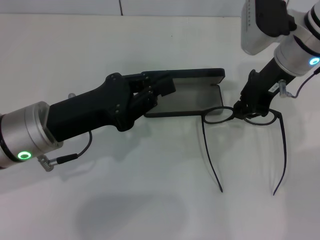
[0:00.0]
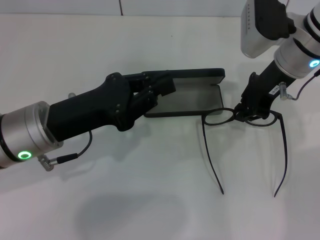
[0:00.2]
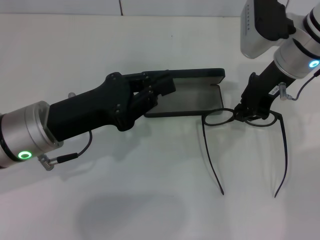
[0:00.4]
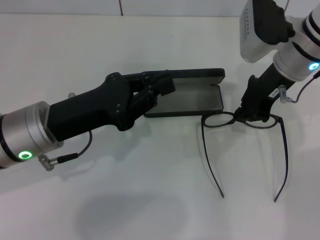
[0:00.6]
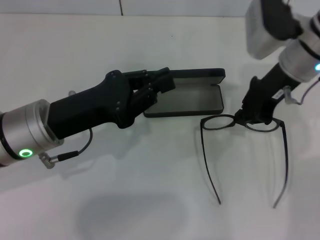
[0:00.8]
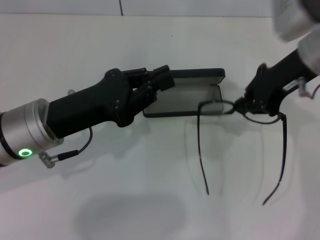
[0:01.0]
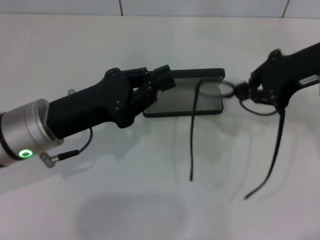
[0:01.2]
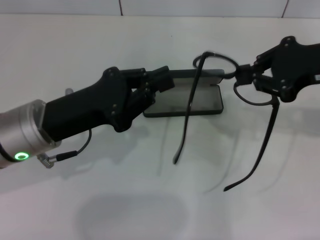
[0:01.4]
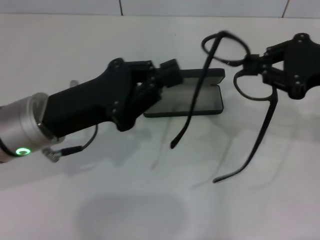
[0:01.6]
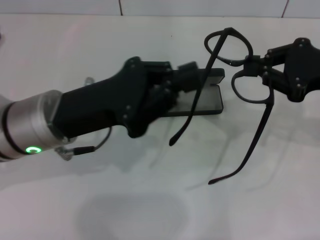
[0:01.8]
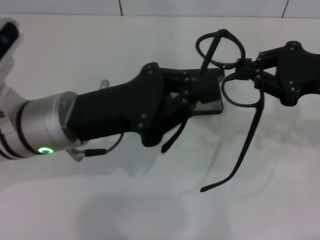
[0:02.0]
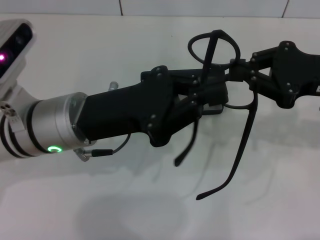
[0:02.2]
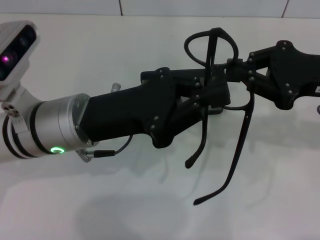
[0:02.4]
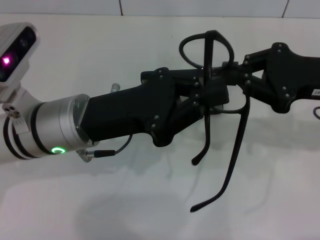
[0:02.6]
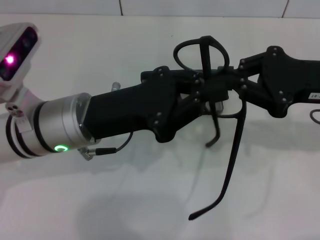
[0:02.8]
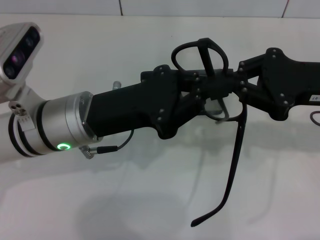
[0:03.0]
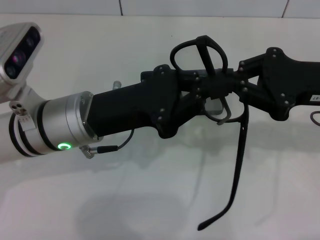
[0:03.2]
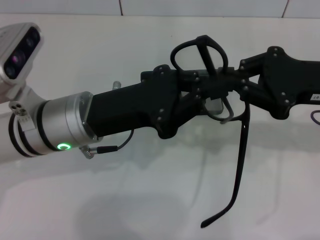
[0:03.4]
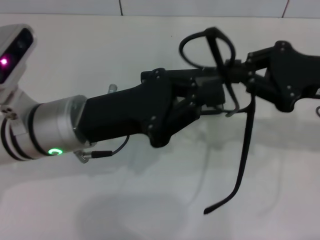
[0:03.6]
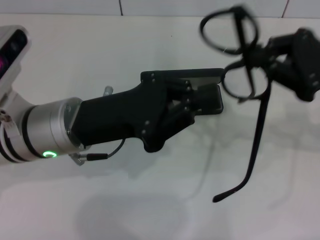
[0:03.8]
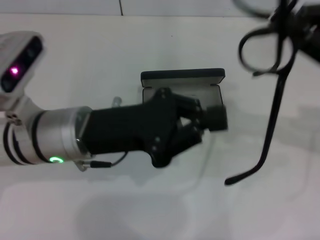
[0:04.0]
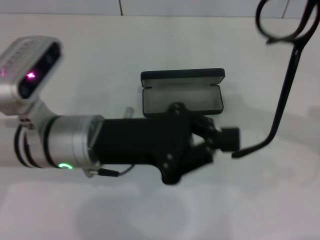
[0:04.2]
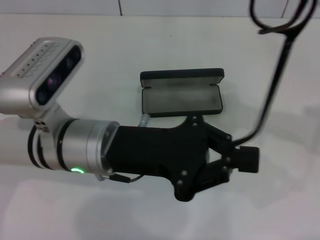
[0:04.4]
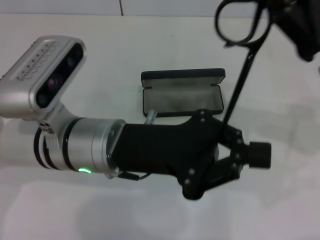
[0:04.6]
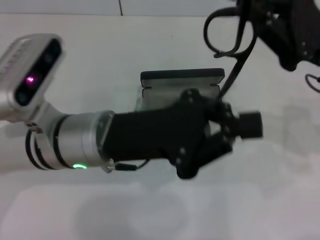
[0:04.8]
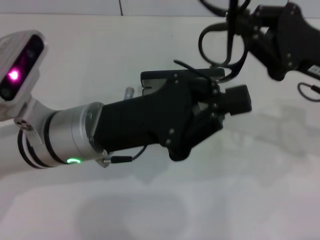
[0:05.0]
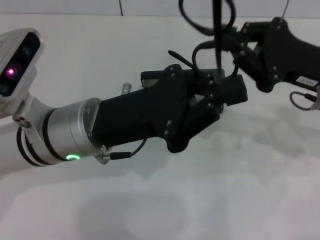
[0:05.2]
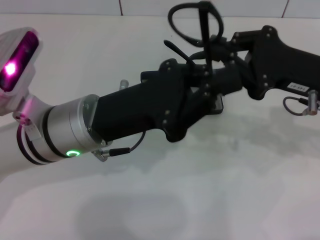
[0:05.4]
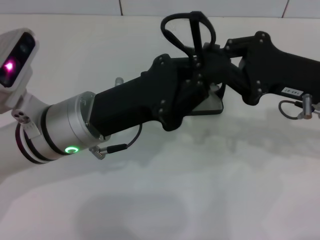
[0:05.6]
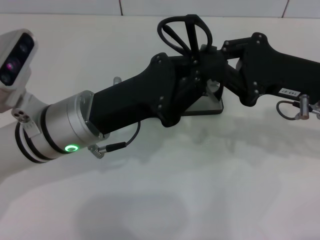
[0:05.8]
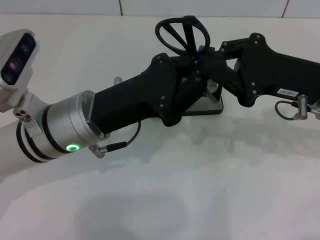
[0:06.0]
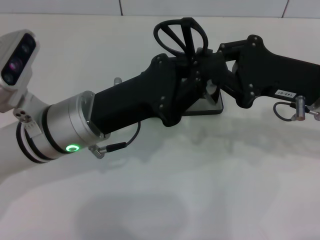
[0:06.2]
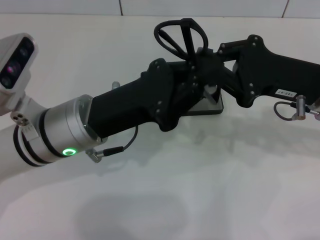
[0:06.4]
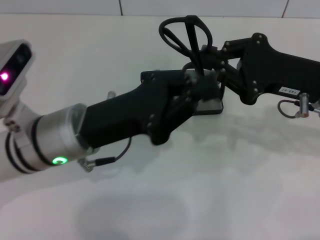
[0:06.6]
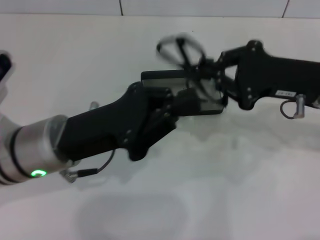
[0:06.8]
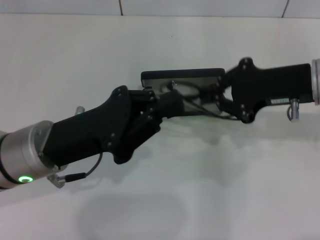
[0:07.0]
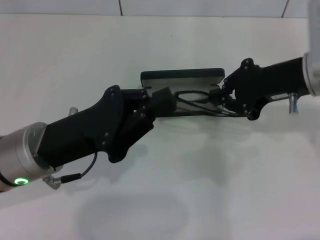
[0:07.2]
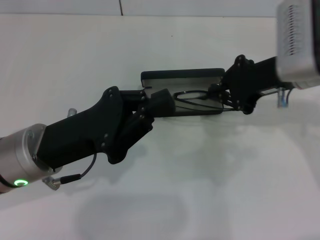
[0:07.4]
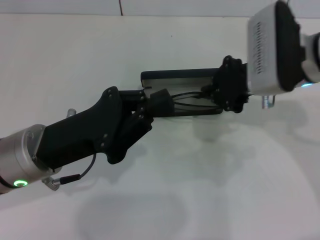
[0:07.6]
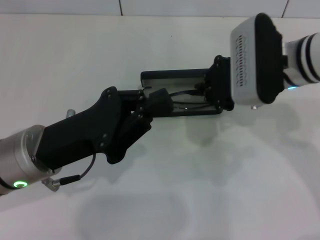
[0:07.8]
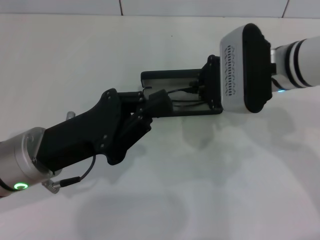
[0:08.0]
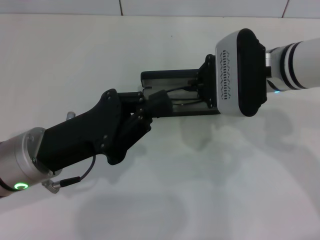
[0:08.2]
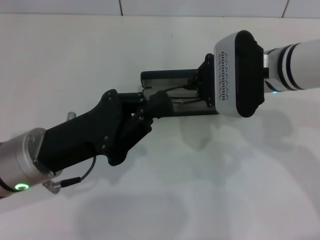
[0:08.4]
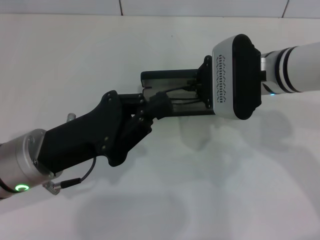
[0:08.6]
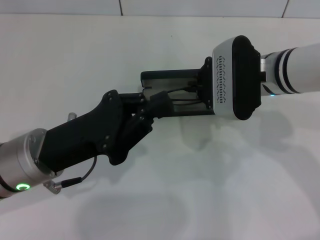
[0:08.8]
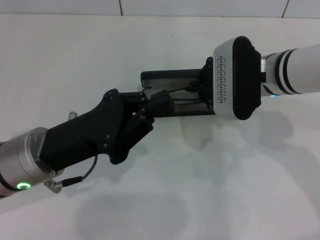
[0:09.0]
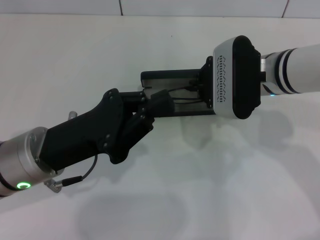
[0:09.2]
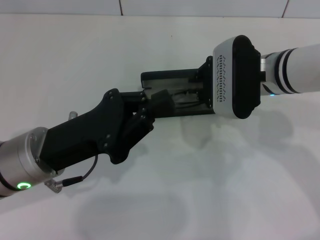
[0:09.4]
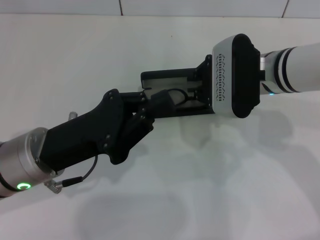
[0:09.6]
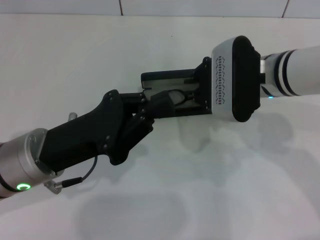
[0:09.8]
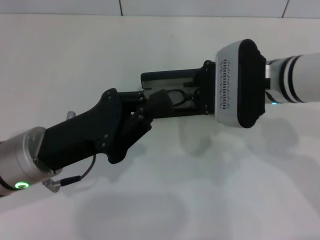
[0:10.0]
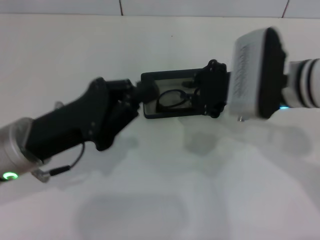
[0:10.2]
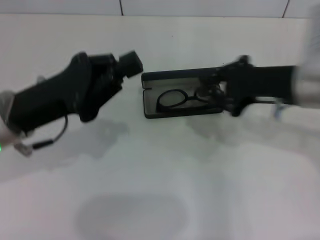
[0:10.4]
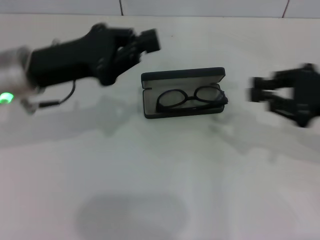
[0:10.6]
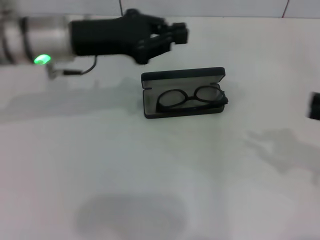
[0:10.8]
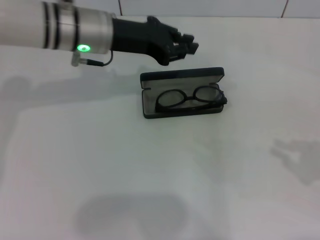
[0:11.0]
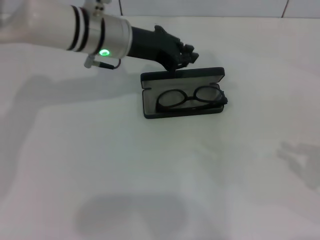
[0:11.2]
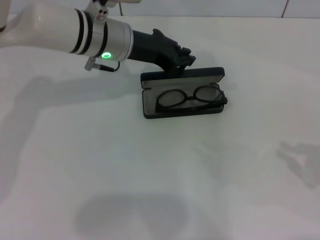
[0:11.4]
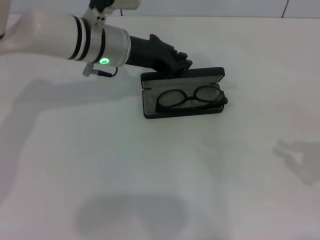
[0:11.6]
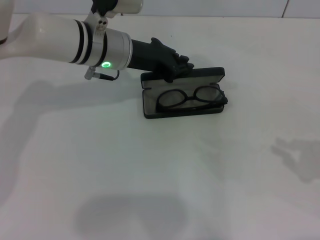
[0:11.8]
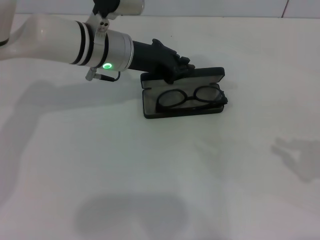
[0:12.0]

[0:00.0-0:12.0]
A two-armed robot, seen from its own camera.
Step, 0:00.2 to 0:06.6: Fold the frame with your left hand.
Step, 0:06.8 to 0:09.8: Put the glasses into the case with your right hand.
0:00.0 to 0:01.6: The right gripper shifts about 15 cm backward and to the right.
0:04.4 to 0:06.0: The right gripper travels downward and to the left by about 10 cm.
0:06.0 to 0:07.6: The two grippers go roughly 5 cm to the left.
0:07.6 to 0:09.0: The grippers stay close to where they were, moving slightly.
0:09.0 to 0:10.4: The left gripper changes place by some 5 cm. Meanwhile the right gripper is displaced to the right and backward by about 10 cm.
0:10.4 to 0:12.0: The left gripper is displaced forward and to the right by roughly 20 cm. The right gripper shifts about 20 cm to the right and backward.

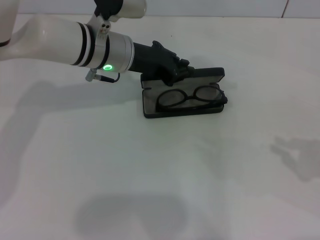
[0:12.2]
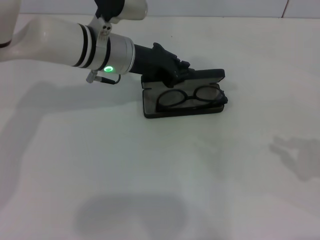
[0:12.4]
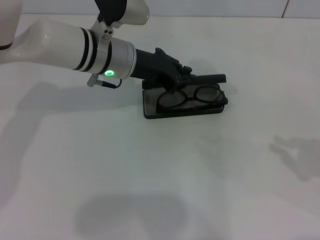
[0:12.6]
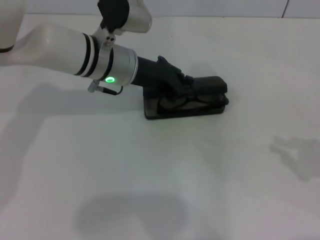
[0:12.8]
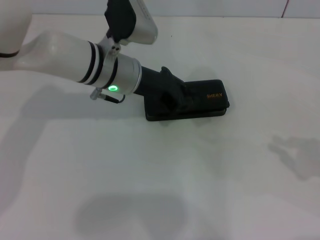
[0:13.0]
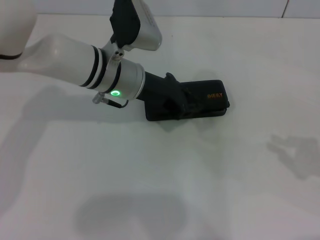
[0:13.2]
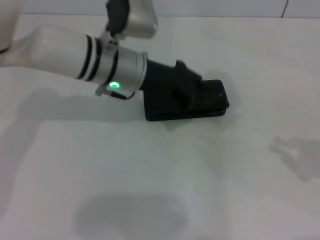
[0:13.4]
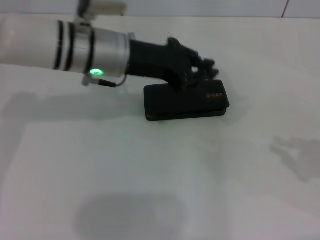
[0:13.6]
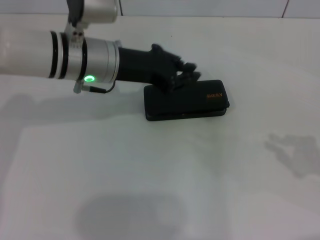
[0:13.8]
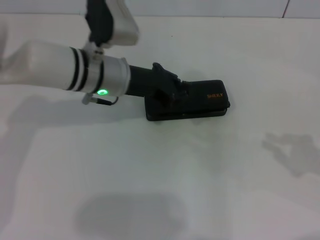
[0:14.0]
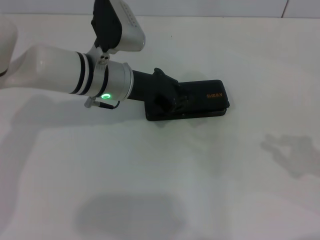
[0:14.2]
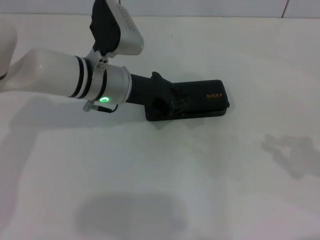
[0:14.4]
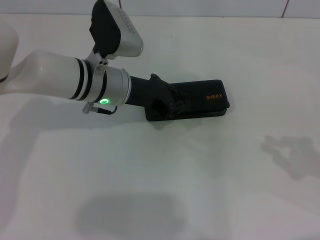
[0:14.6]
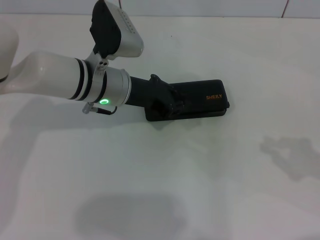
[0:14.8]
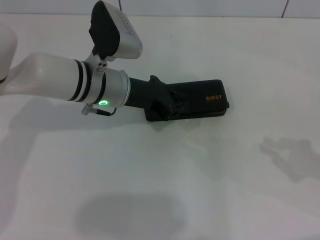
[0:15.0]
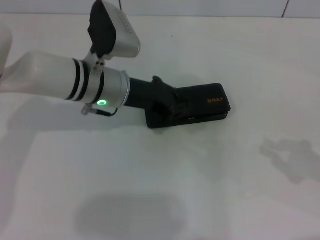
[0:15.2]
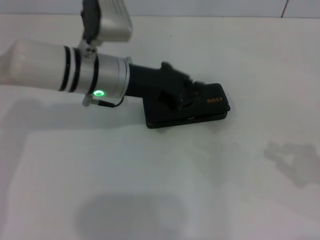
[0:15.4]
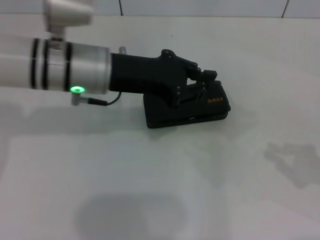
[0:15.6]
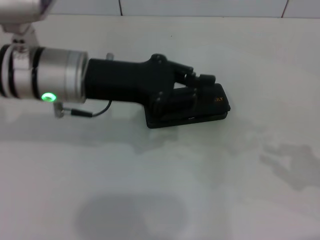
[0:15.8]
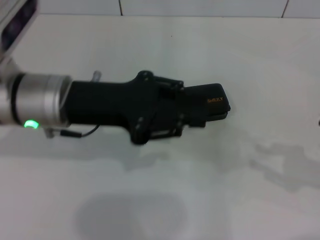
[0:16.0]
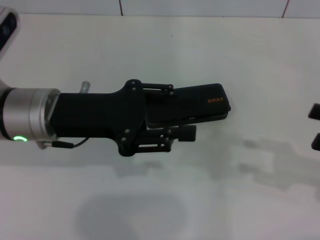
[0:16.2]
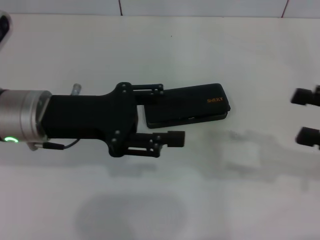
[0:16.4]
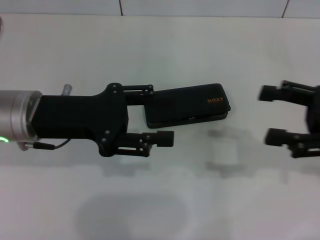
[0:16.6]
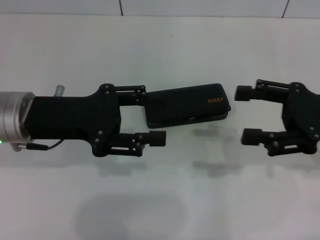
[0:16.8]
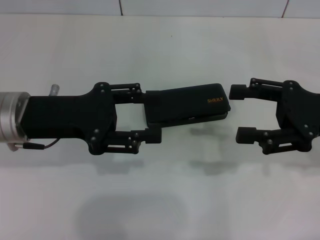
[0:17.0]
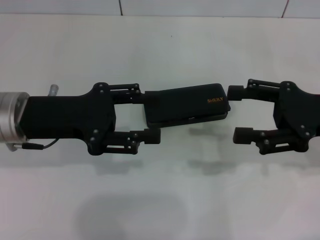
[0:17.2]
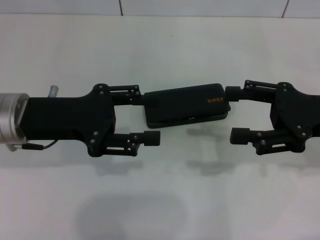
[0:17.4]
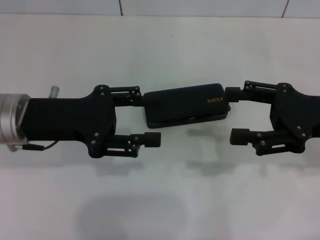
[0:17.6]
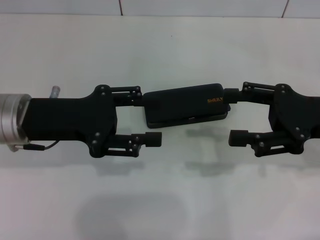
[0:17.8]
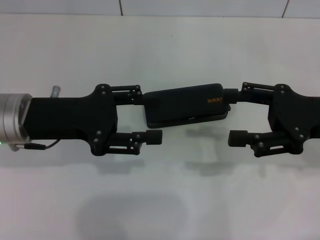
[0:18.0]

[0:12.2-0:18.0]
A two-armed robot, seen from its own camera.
Step, 0:12.2 to 0:15.4: Close the glasses case with your left hand.
0:12.2 to 0:13.6: The left gripper shifts by some 5 cm.
0:13.6 to 0:15.0: The left gripper goes approximately 5 cm downward.
0:15.0 to 0:16.6: The right gripper is displaced to the left and forward by approximately 10 cm, and opens; the left gripper shifts roughly 10 cm to the left and backward, and opens.
0:16.6 to 0:18.0: There are only small adjustments of the grippers.
